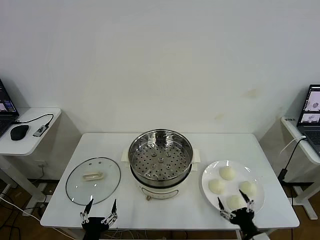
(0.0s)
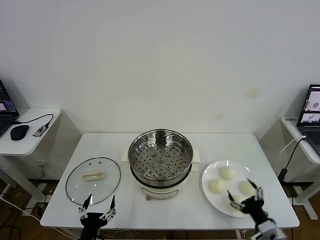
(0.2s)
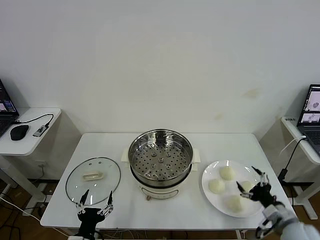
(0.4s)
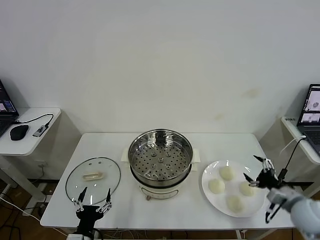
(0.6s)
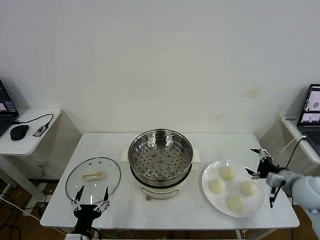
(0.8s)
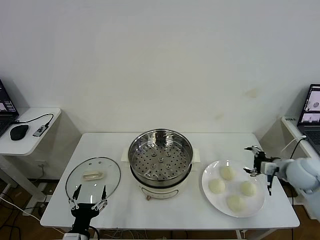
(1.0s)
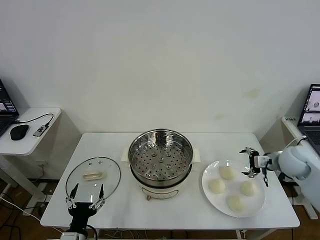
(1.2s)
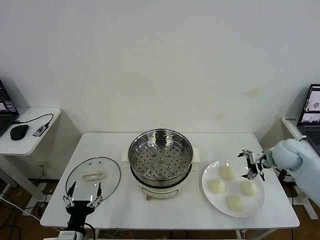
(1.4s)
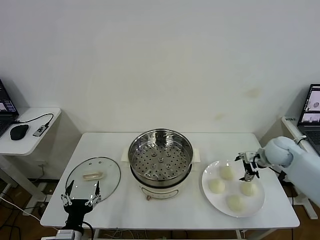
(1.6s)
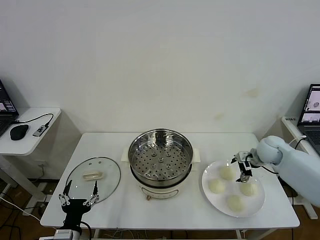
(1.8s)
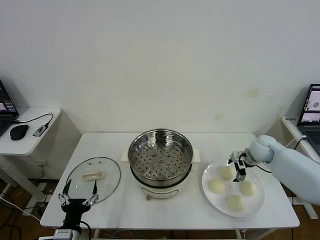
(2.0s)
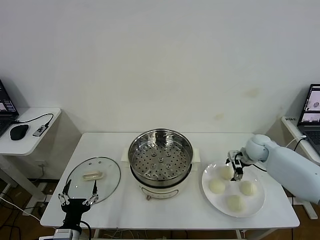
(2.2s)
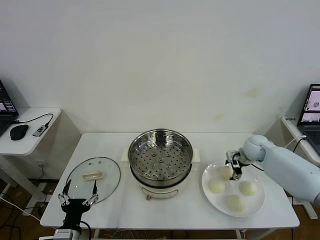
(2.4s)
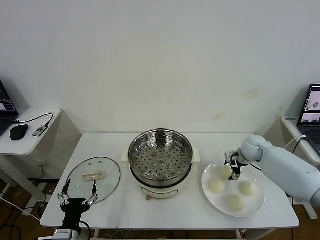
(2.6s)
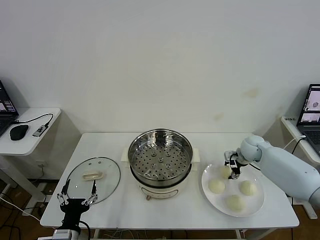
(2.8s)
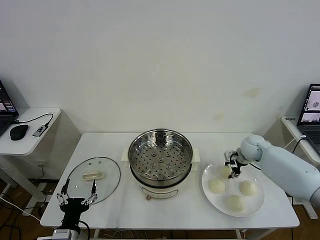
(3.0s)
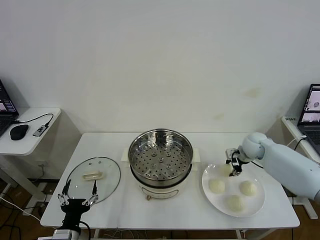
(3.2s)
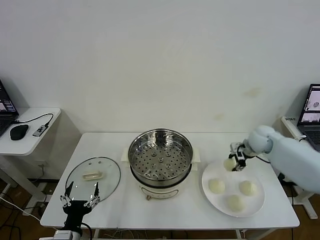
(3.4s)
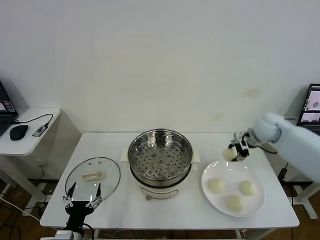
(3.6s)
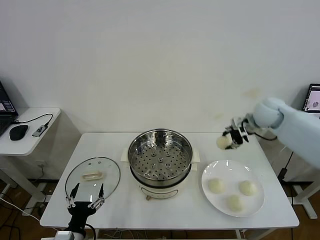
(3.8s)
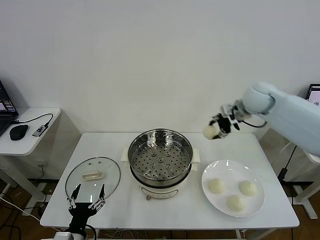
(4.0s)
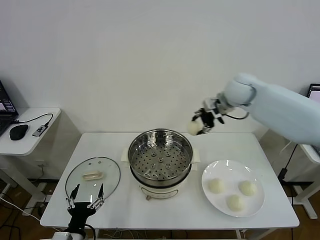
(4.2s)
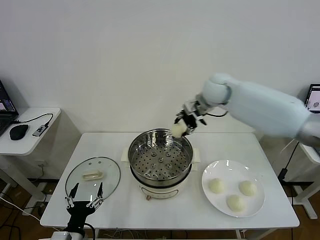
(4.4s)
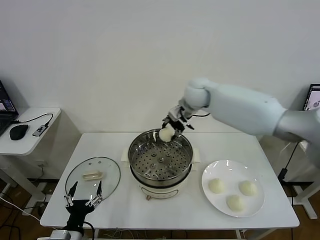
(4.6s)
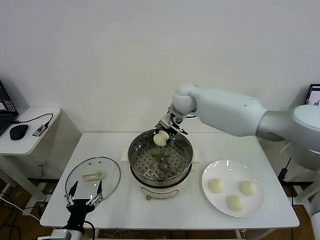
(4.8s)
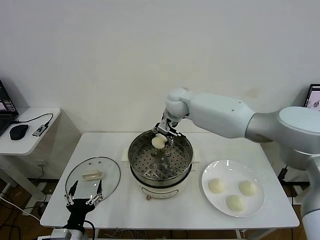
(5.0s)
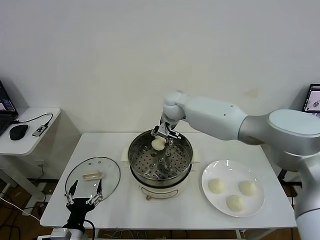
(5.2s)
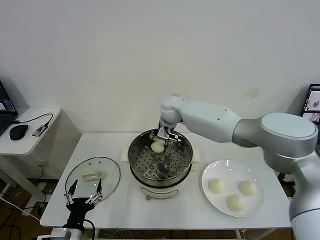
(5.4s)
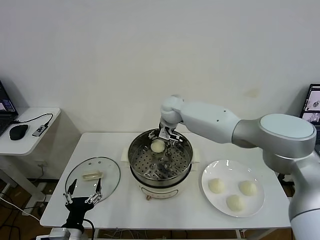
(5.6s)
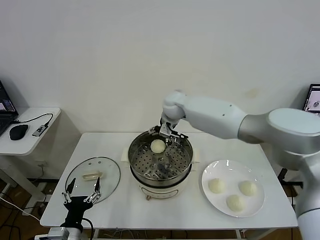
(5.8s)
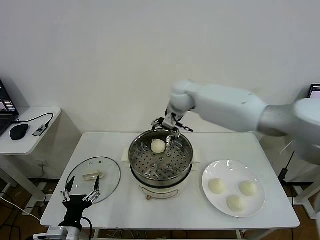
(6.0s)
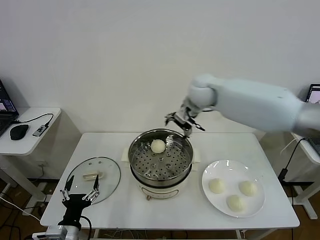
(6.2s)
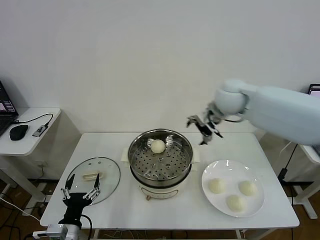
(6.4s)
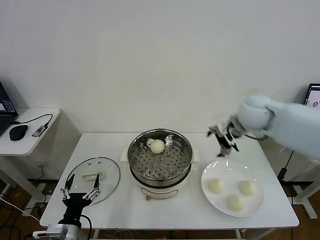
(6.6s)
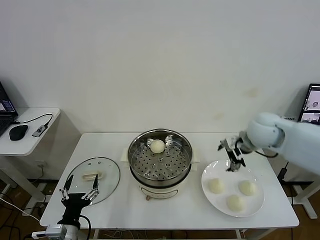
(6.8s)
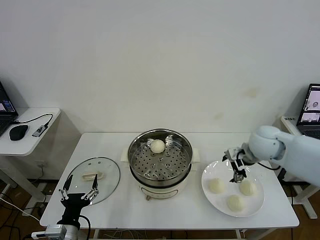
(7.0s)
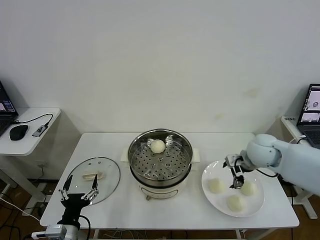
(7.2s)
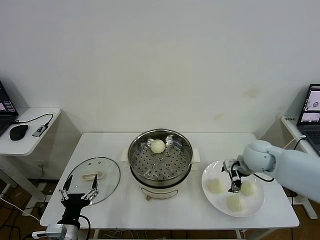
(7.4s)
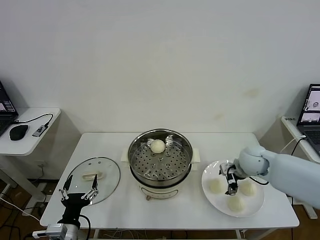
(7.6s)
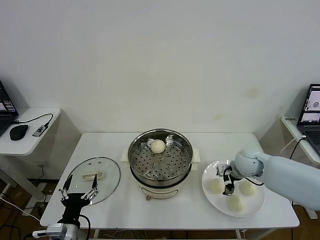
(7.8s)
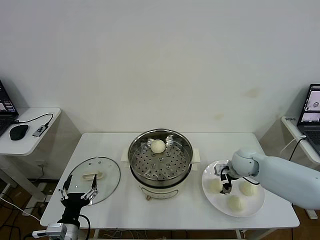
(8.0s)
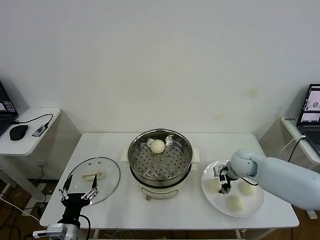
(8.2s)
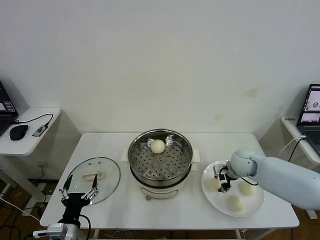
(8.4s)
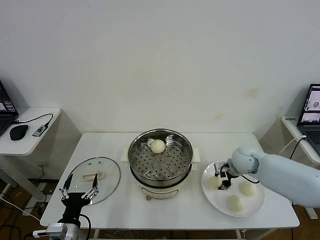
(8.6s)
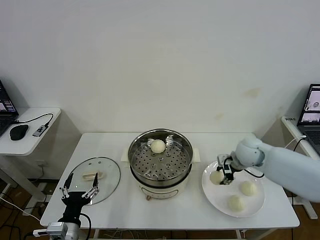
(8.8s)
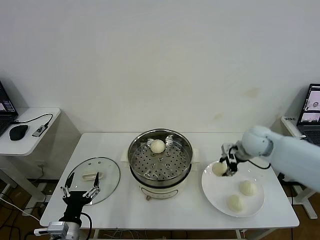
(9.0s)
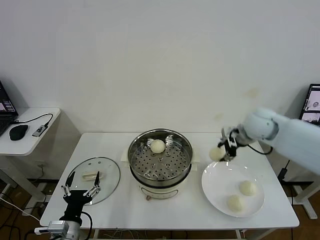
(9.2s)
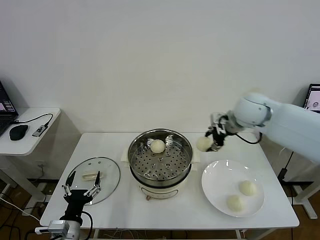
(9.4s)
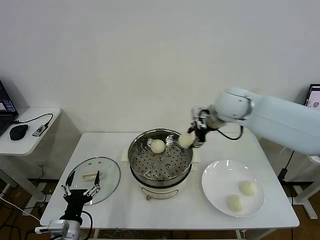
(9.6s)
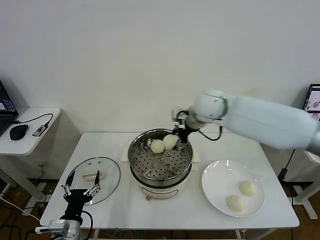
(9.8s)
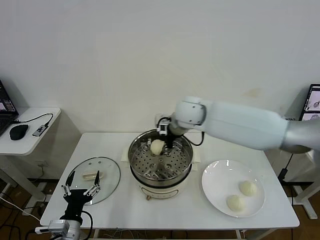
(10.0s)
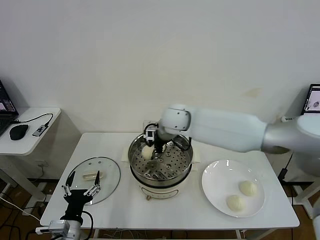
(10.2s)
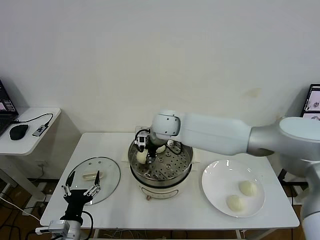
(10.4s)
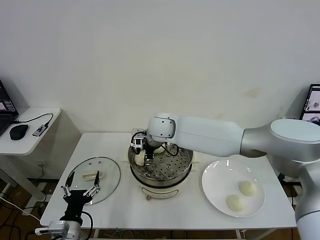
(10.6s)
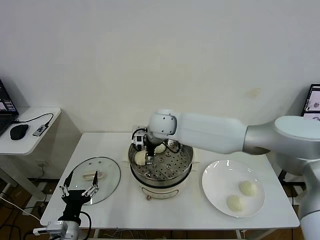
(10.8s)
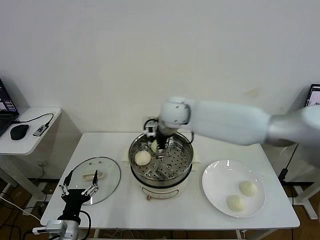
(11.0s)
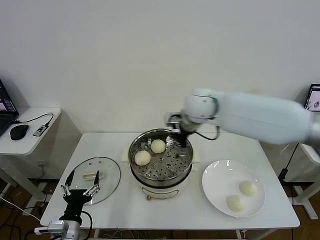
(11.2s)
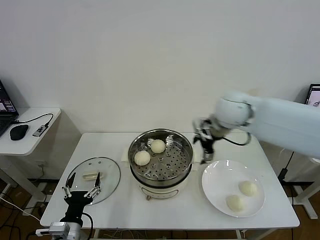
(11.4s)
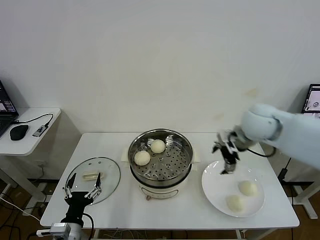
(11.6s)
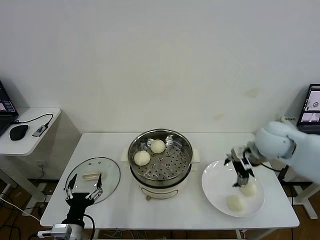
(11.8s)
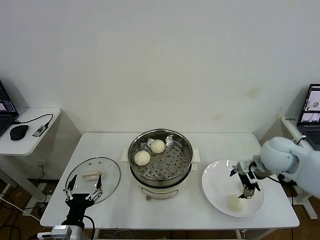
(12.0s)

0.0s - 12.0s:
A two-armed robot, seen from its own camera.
Task of the whole recording: take steamed baozi put them in steamer then cover it.
Step, 0.0s - 3.0s: Grasp the baozi in the plate with right gripper.
Step, 3.2s - 5.6s: Place the baozi on the steamer with right gripper.
Step, 5.8s - 8.4s: Grasp the baozi in the plate with right gripper.
Step, 8.8s - 10.6s: Place the baozi on the steamer with right gripper.
1.6s - 3.0s: The right gripper moves roughly 5 cm, and closes.
3.0s - 4.4s: The right gripper travels to the left and upward by roughly 30 cm.
4.4s - 6.0s: The right gripper goes downward and returns, about 10 cm each way, and opens up.
6.0s - 7.6s: The right gripper shifts approximately 30 cm to the right, downward and backward.
7.6s - 9.0s: The right gripper goes about 10 cm upward, and closes up.
9.0s - 10.4s: The right gripper heads to the left, covering about 30 cm.
10.4s - 12.0s: The right gripper travels to the right by about 35 cm, and opens up.

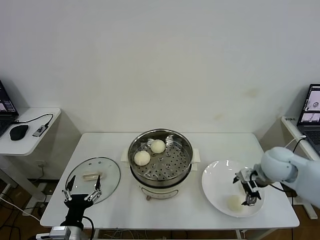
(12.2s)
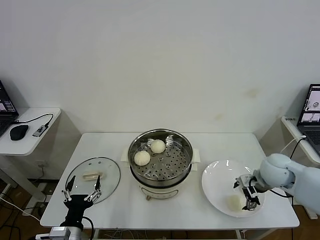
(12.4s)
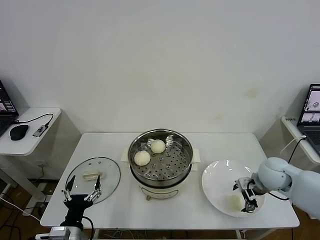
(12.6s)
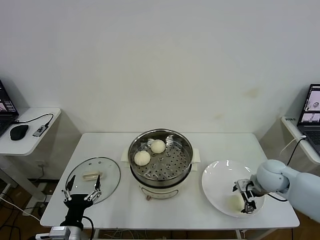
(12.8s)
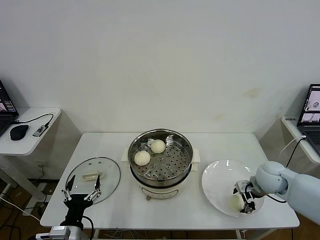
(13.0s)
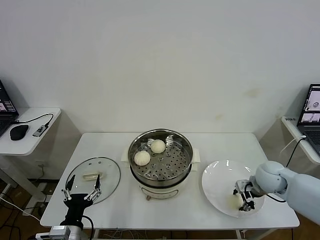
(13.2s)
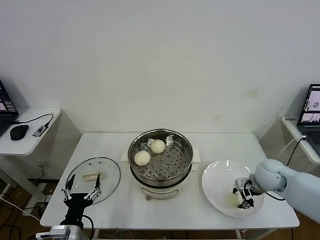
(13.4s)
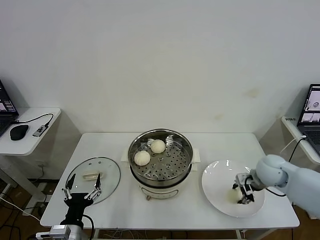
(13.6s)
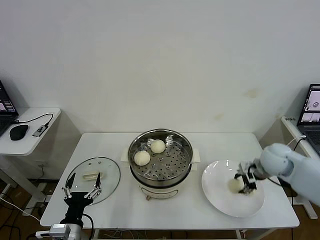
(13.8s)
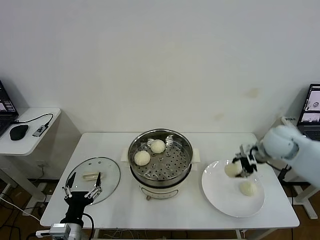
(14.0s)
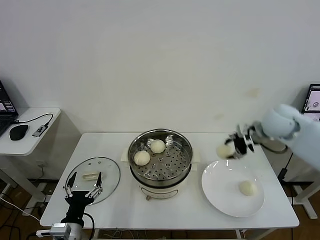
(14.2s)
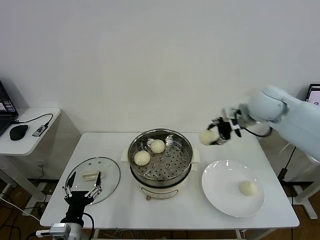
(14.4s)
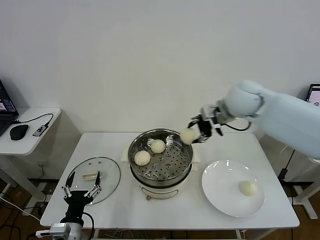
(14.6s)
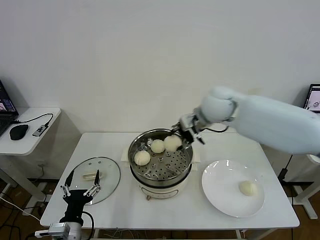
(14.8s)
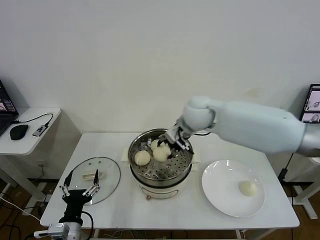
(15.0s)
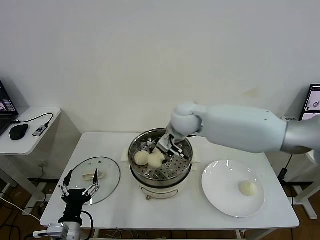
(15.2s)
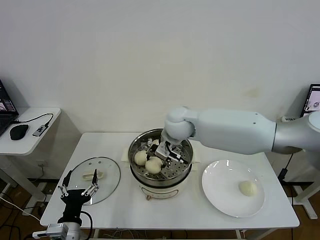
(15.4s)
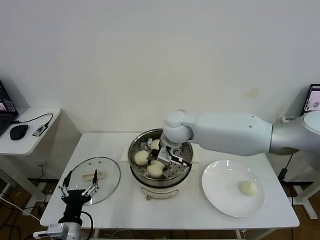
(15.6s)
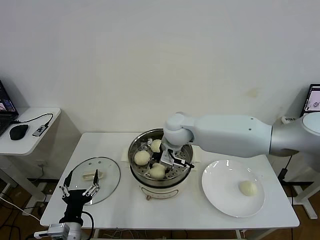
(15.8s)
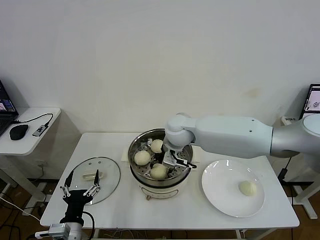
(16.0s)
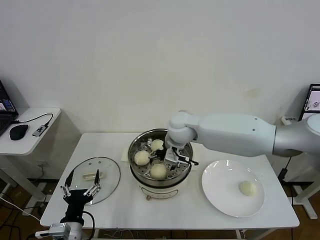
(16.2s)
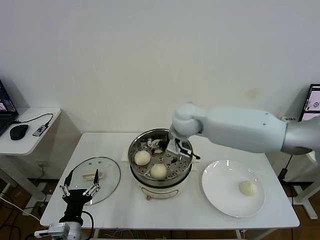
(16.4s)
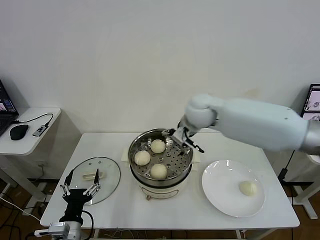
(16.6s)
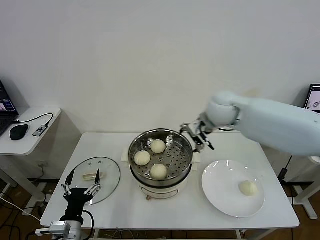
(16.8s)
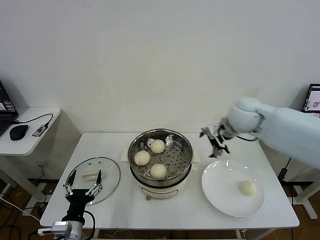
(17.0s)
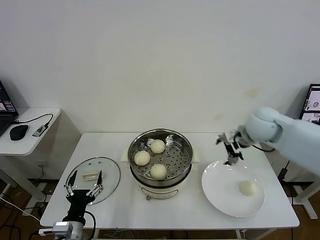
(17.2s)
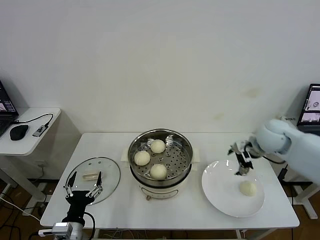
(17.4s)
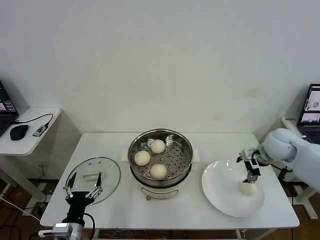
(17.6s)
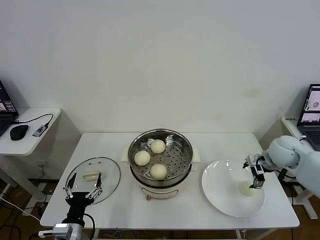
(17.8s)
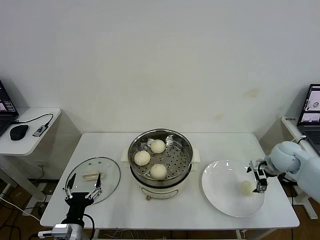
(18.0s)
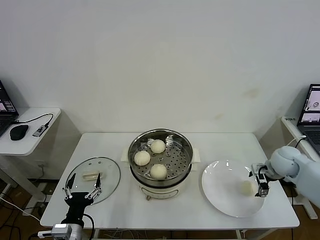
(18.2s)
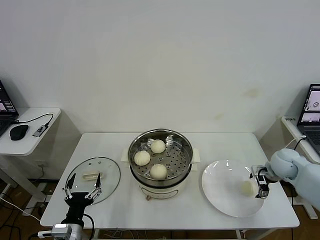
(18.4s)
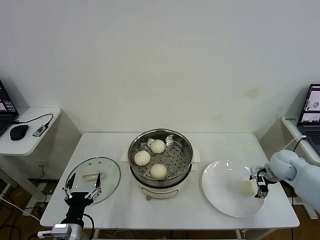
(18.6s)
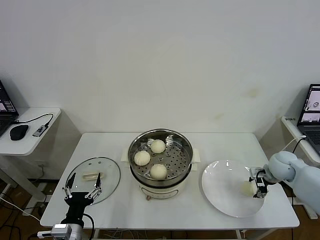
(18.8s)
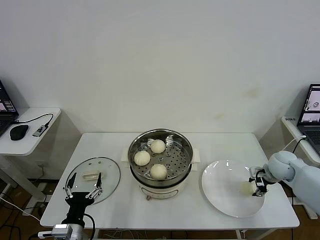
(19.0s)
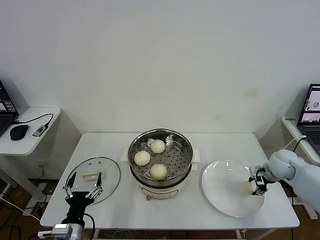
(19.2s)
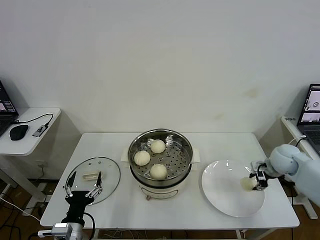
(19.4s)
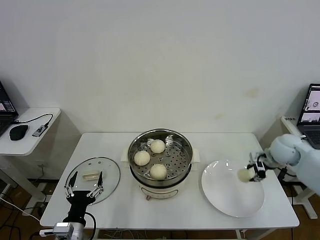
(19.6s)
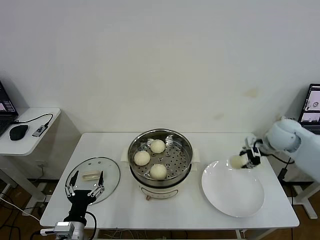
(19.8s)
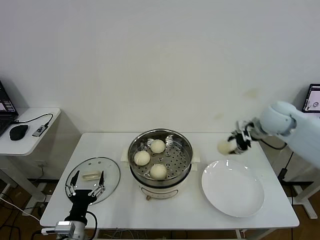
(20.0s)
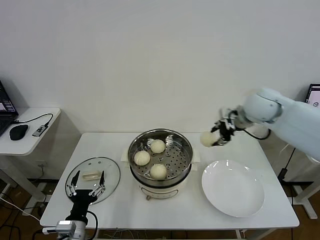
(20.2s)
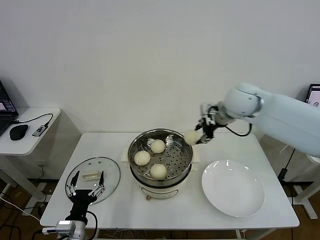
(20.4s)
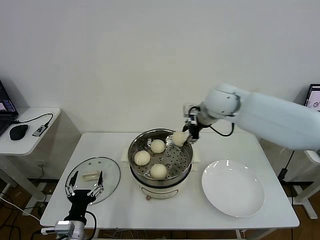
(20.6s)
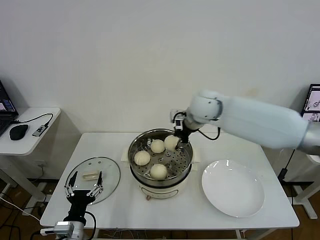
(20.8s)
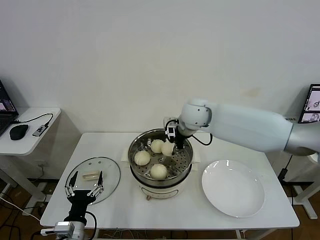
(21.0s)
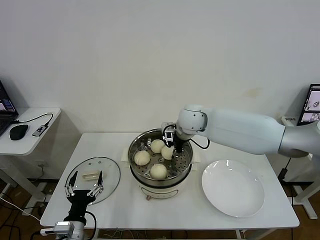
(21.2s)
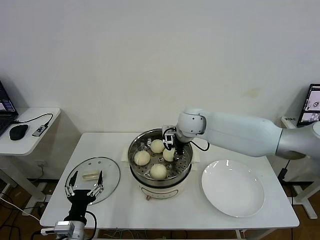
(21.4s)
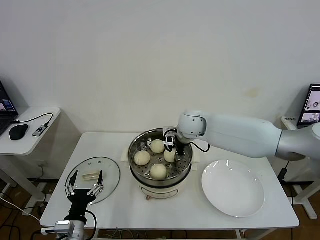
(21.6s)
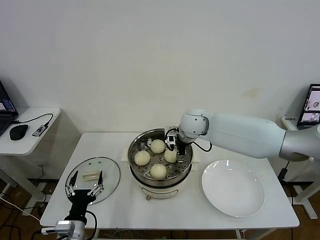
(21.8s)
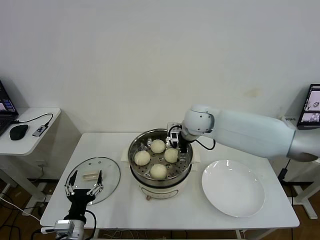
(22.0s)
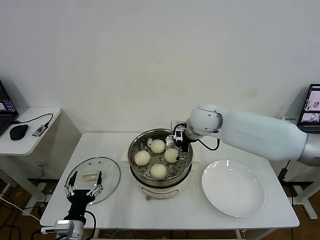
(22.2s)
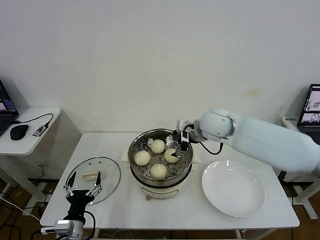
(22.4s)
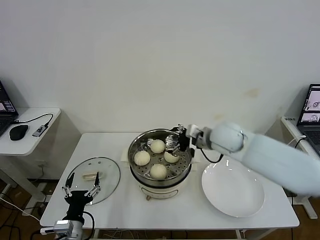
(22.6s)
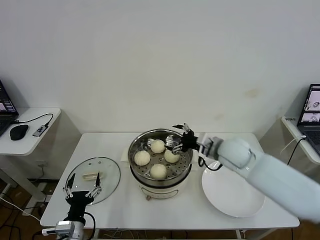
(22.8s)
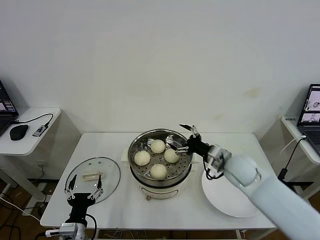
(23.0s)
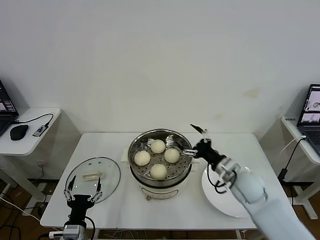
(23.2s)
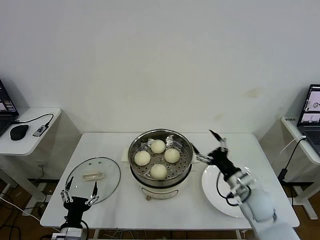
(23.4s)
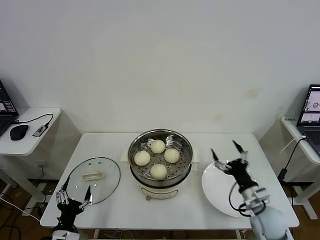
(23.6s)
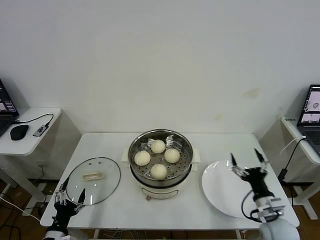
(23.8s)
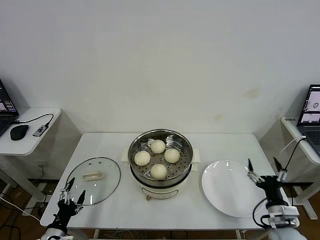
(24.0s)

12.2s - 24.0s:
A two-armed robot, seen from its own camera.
Task of the whole recording: take steamed baozi put them in steamer then cover it.
Step, 13.6s - 16.2s: Place the baozi on the steamer with right gripper.
Step, 16.4s - 19.2s: Grasp the baozi in the plate with right gripper.
Step, 19.4s - 21.8s: Place the baozi on the steamer with right gripper.
12.2s - 13.6s: The right gripper closes.
13.6s - 15.2s: The right gripper heads to the left and upward, covering about 35 cm.
15.2s - 16.6s: The right gripper is displaced to the right by roughly 5 cm, and opens up.
16.6s - 18.2s: The right gripper heads to the right and downward, covering about 35 cm.
18.2s - 19.6s: The right gripper shifts about 5 cm upward, and closes.
19.6s - 21.0s: The right gripper goes about 30 cm to the left.
21.0s - 22.6s: The right gripper moves to the right and backward, some 10 cm, and opens.
22.6s - 24.0s: The left gripper travels to the left by about 10 cm. The right gripper moves backward, downward and to the right, approximately 35 cm.
